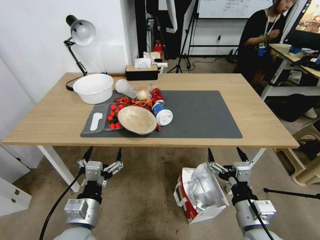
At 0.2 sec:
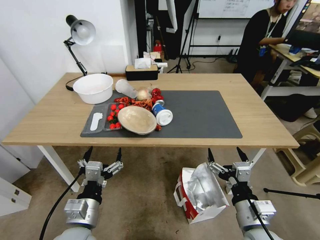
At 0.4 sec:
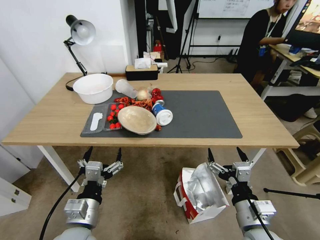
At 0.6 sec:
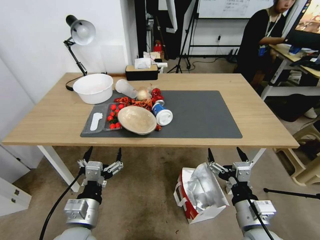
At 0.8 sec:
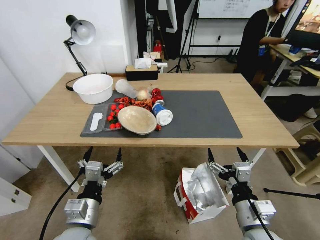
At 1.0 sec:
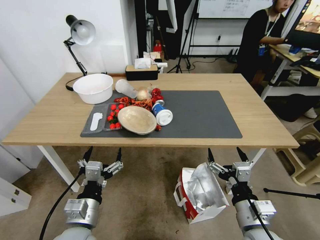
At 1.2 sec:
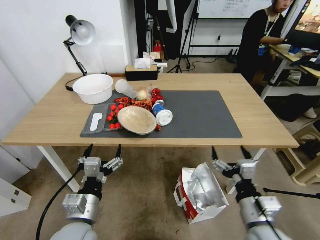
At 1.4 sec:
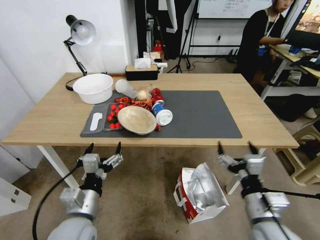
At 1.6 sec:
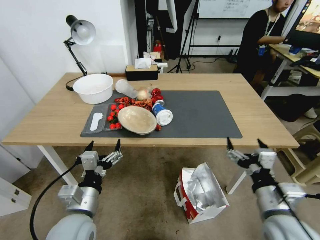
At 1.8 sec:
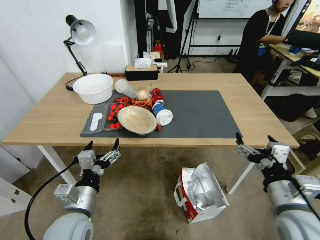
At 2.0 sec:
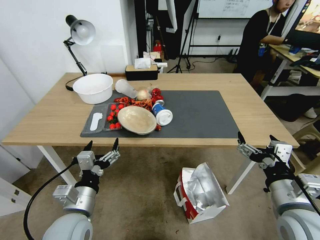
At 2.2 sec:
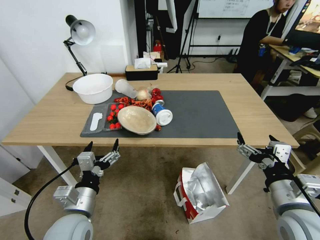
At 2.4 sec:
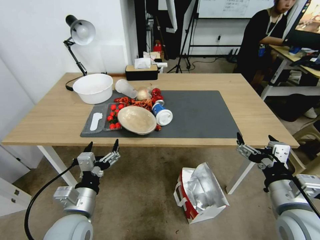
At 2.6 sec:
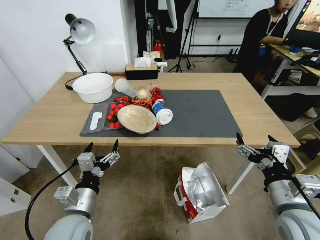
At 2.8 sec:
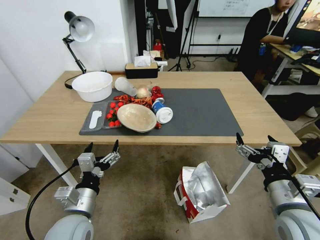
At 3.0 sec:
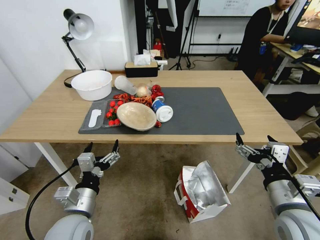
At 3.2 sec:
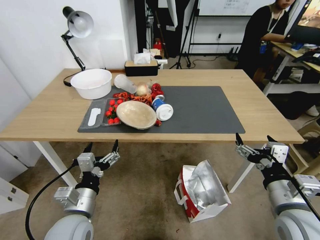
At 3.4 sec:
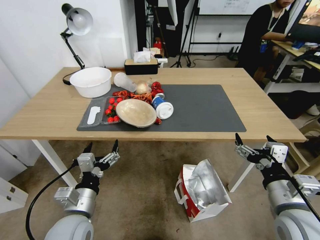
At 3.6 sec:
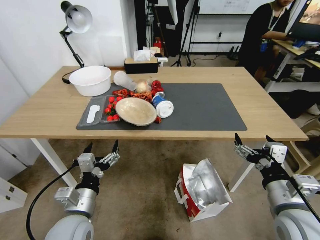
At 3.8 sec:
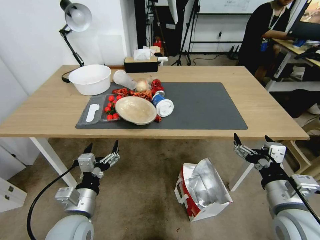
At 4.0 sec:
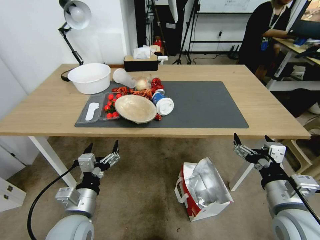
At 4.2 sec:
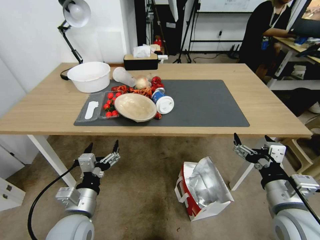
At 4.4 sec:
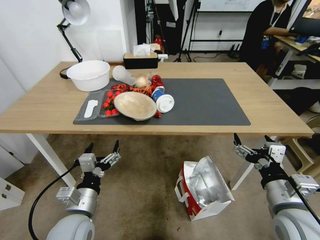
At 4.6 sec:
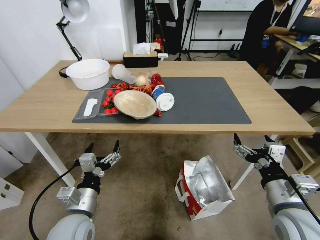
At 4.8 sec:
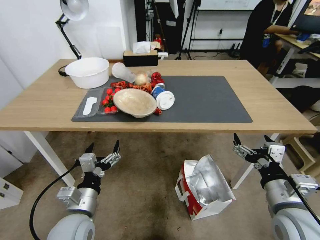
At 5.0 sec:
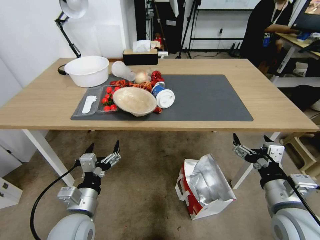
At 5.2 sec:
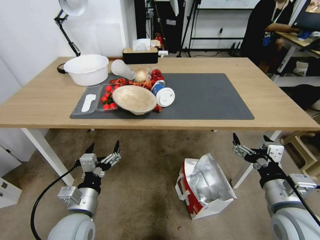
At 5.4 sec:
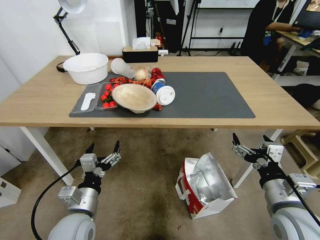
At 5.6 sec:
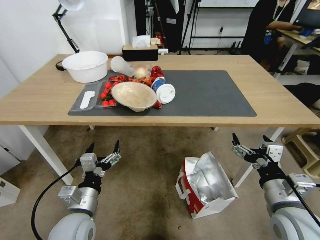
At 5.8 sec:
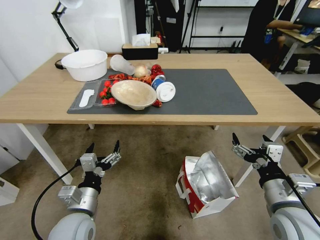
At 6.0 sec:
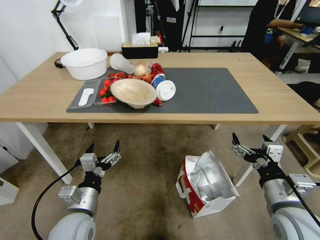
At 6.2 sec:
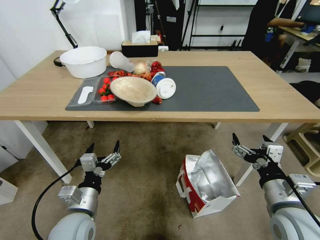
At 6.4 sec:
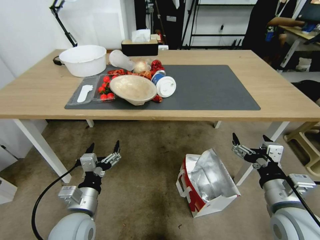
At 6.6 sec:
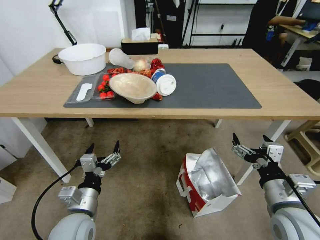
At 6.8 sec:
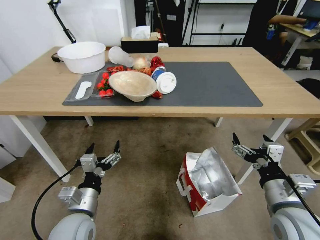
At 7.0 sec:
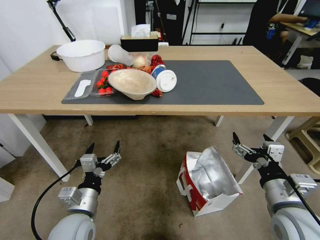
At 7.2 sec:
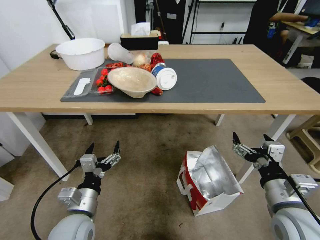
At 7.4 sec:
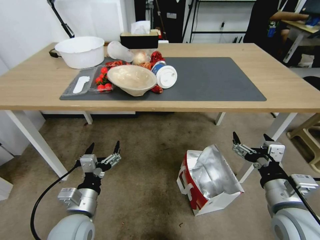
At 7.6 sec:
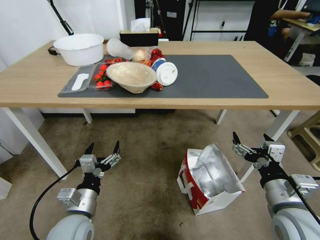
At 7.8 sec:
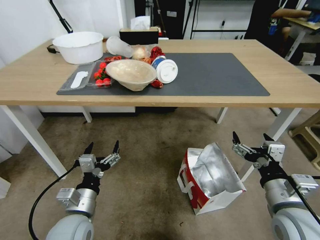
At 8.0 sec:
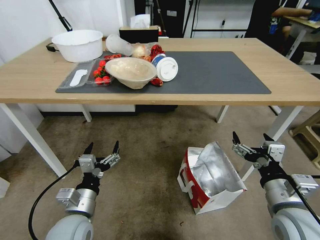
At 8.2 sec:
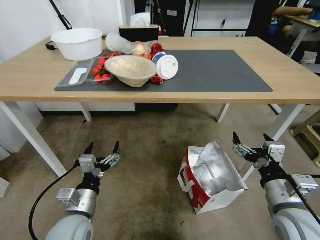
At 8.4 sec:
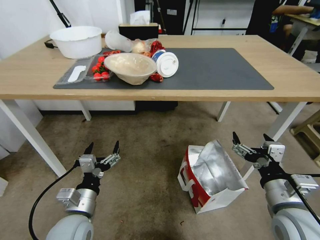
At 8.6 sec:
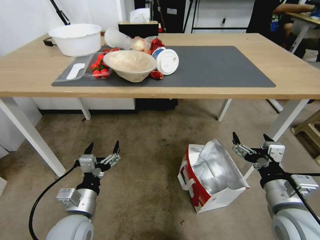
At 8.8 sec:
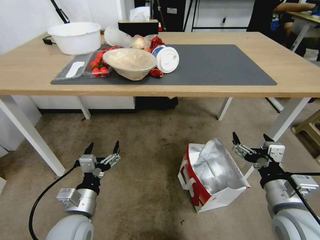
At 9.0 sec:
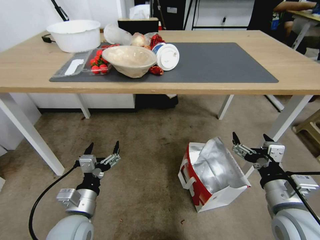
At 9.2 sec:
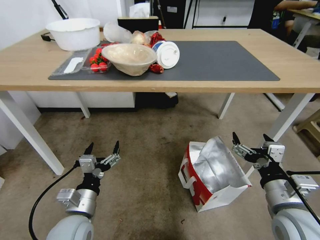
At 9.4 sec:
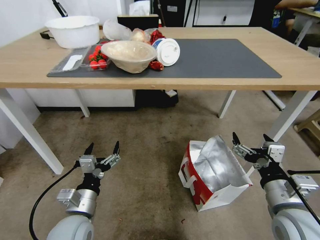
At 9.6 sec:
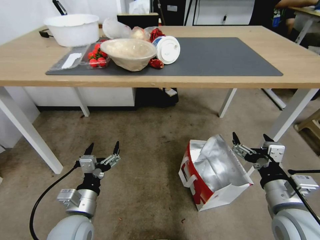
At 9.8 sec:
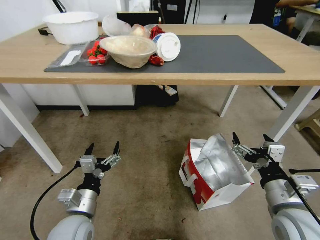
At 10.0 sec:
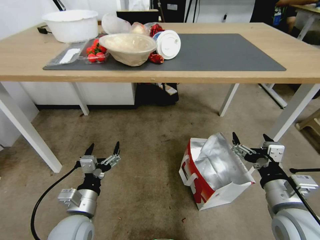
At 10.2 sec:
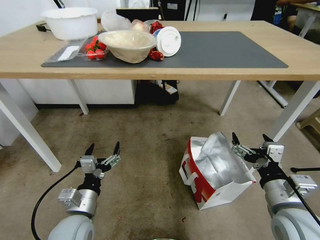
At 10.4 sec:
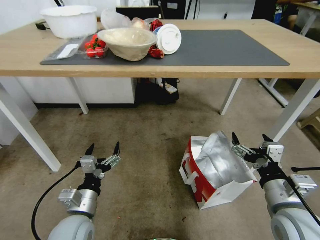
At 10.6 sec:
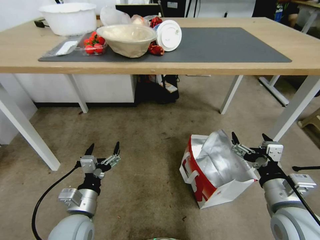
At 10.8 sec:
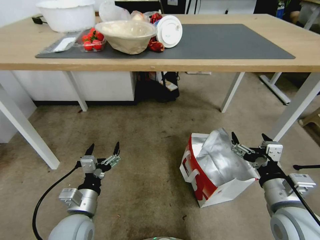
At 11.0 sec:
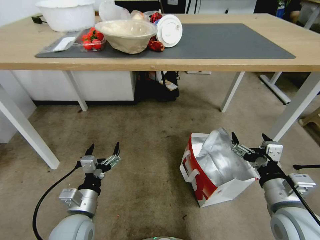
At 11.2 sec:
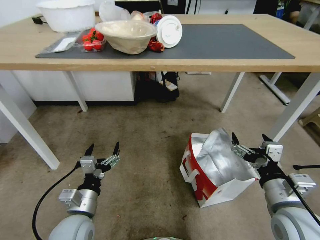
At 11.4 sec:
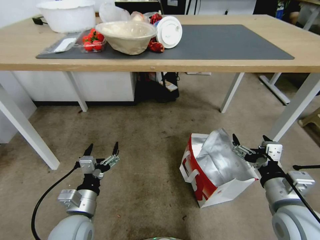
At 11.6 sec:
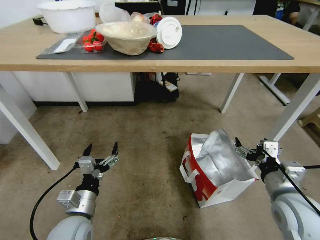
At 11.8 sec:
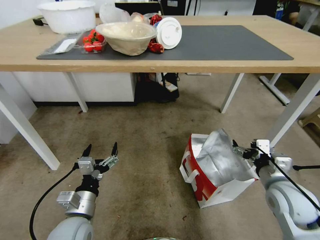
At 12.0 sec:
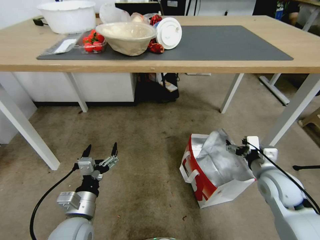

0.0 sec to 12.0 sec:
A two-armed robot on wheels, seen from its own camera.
Task of the whole recording: Pick up the food delivery bag from the floor and place it on the table.
1.6 sec to 3.0 sec: The right gripper goes roughly 5 cm upward.
10.4 sec to 12.0 sec: The right gripper heads forward and downward, covering roughly 10 cm.

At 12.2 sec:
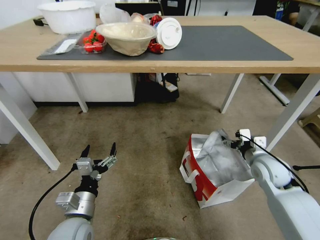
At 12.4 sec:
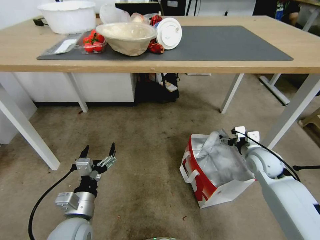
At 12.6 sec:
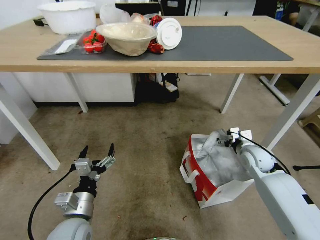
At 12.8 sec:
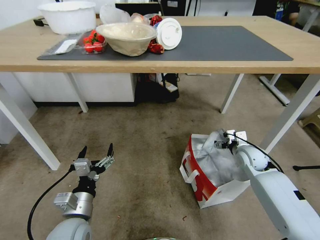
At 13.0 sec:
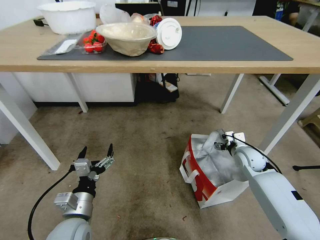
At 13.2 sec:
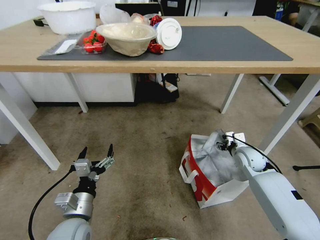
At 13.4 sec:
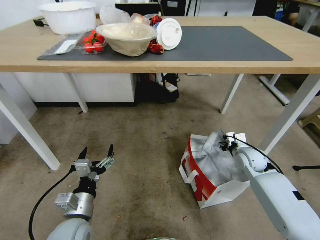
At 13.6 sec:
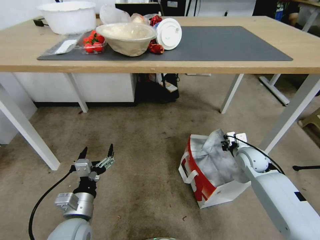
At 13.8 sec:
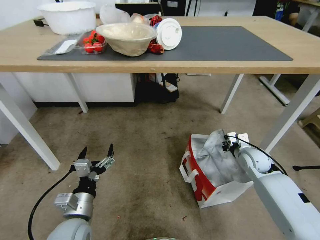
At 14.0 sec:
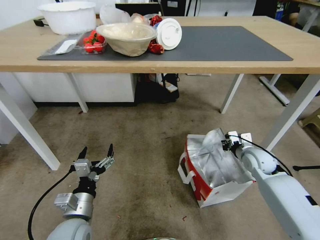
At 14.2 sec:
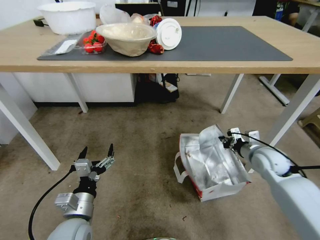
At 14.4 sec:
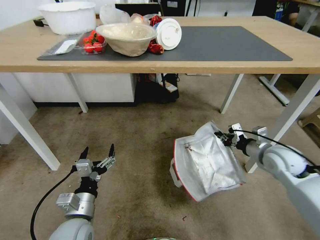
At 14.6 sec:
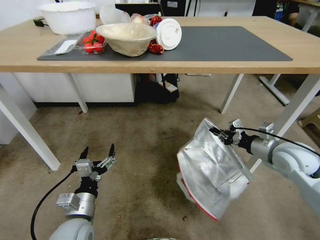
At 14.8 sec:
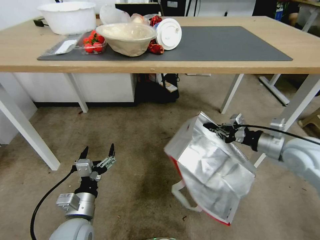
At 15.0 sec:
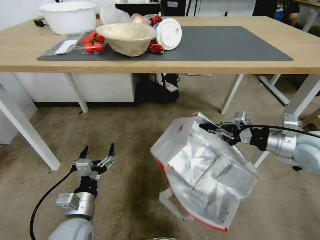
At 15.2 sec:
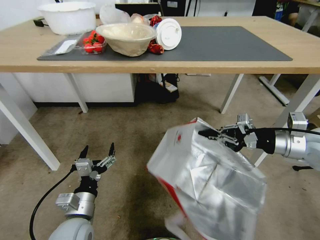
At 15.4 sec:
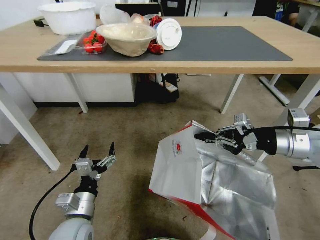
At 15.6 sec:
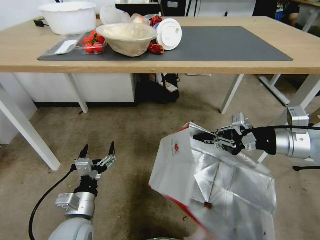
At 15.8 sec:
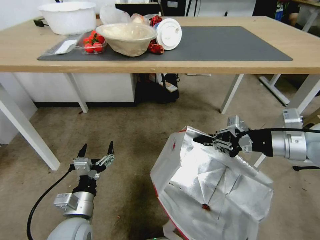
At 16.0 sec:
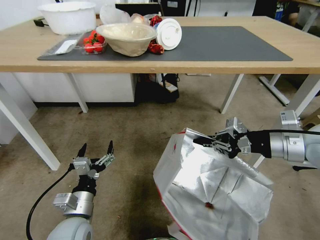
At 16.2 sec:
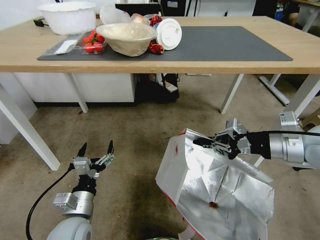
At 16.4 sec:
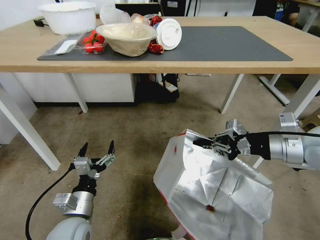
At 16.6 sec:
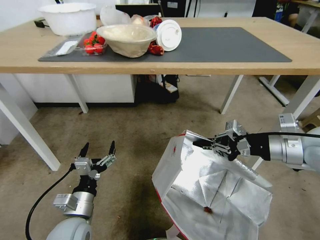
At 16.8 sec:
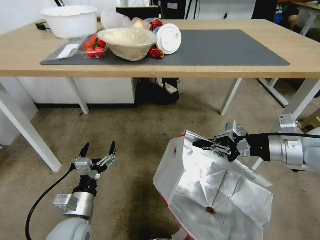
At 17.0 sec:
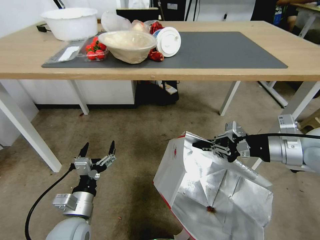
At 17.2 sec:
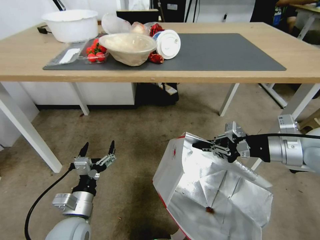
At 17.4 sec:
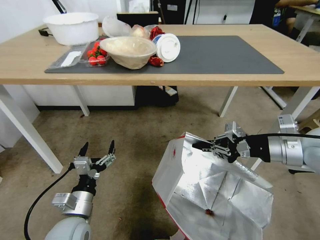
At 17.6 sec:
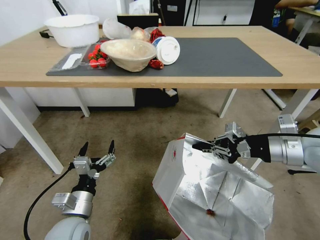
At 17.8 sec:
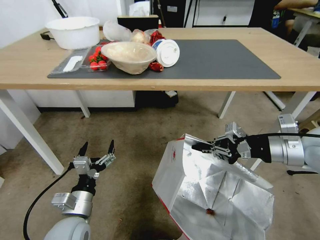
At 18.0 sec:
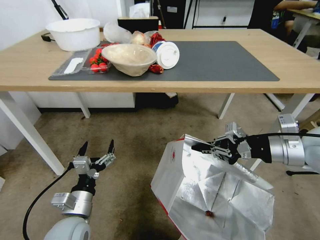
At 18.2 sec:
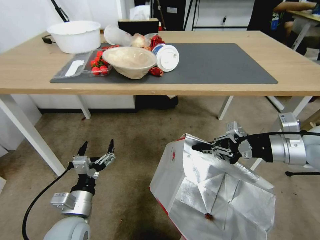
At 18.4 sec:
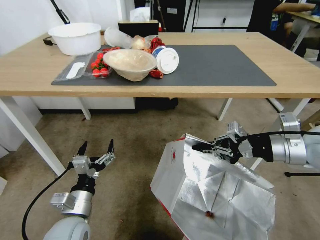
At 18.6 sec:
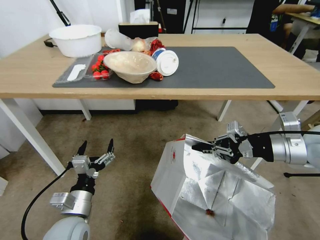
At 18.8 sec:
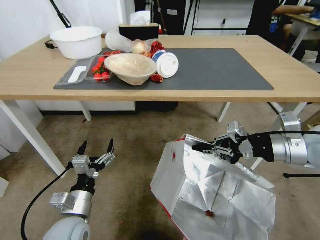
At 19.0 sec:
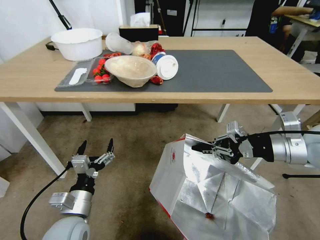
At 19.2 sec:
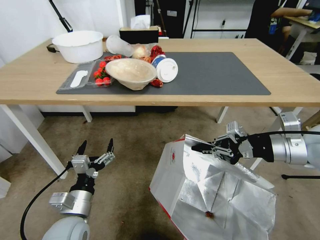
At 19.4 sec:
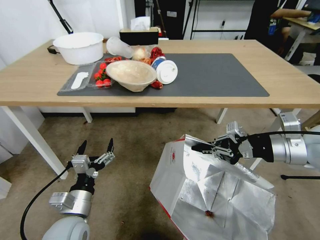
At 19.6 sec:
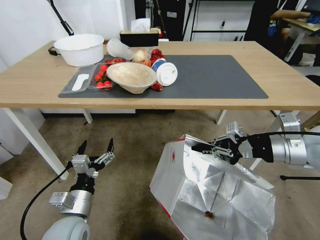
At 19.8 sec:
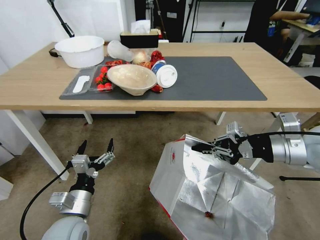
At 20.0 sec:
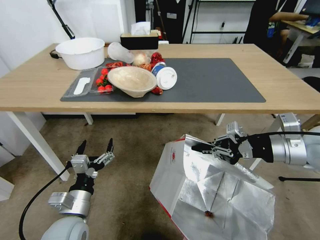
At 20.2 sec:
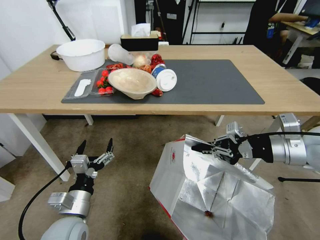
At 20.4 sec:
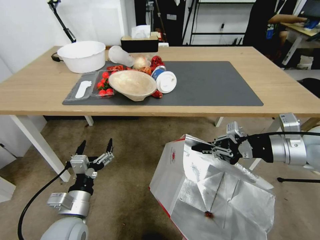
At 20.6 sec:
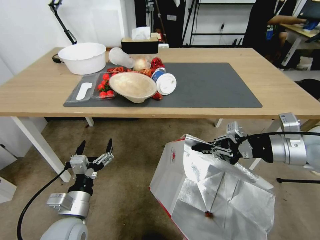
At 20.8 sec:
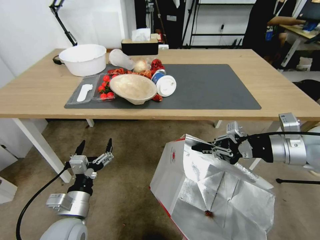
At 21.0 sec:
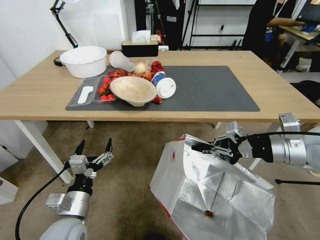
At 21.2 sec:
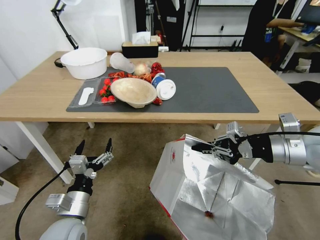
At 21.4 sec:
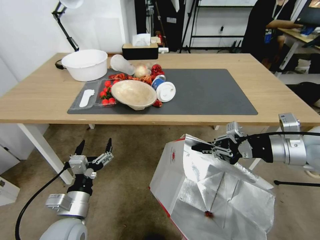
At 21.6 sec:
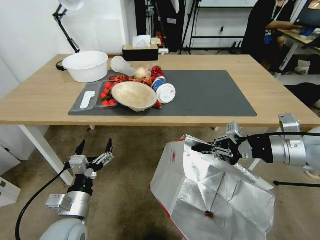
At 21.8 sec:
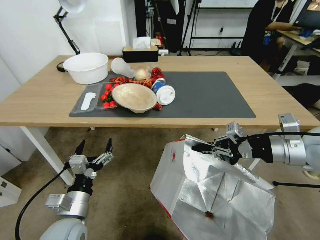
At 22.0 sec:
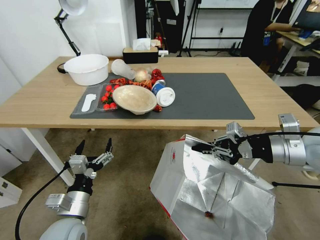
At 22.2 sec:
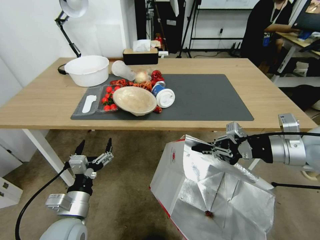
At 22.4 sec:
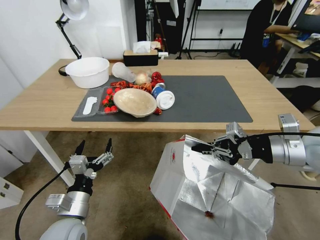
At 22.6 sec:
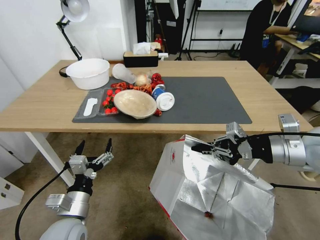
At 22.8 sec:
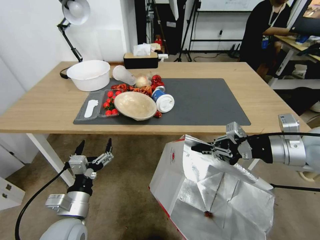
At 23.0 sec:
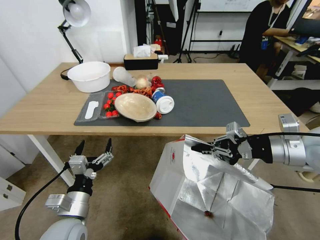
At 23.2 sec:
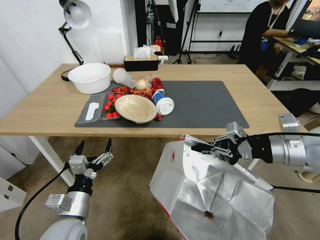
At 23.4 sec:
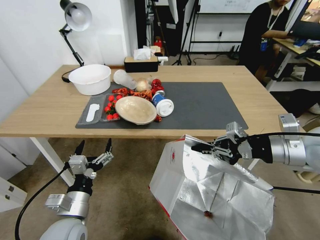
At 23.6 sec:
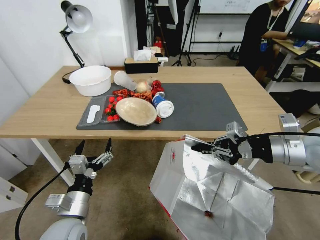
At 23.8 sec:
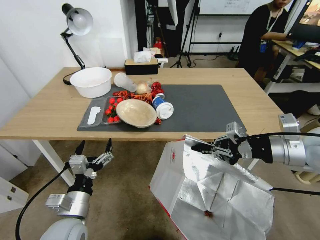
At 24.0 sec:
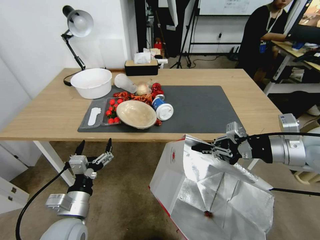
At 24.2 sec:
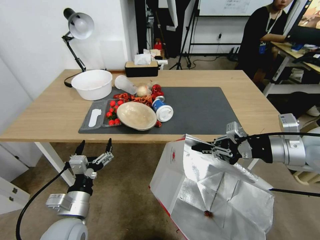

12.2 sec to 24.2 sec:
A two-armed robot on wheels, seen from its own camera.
Task of the whole recording: Pick up the food delivery bag from the floor and place it on the table.
12.2 sec to 13.8 sec: The right gripper moves forward and downward, roughly 10 cm, and closes.
13.8 sec to 15.2 sec: The right gripper is displaced upward by some 20 cm.
15.2 sec to 16.6 sec: The right gripper changes place by approximately 5 cm.
